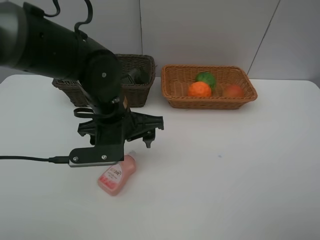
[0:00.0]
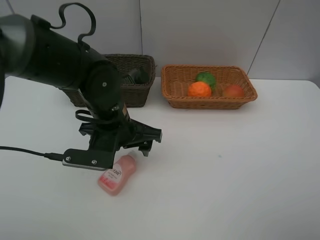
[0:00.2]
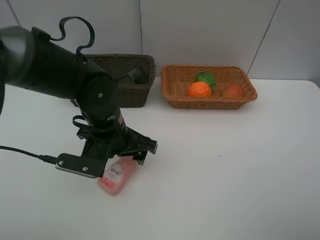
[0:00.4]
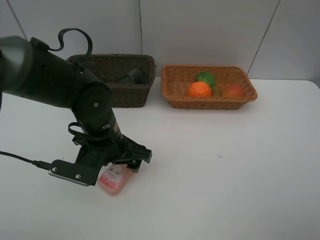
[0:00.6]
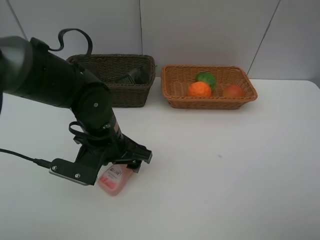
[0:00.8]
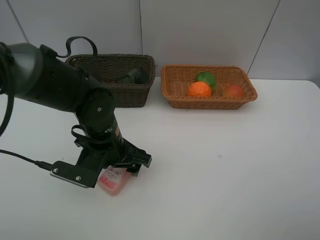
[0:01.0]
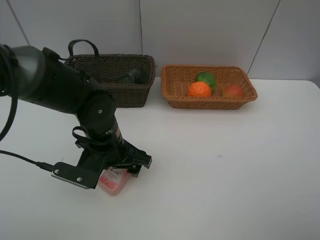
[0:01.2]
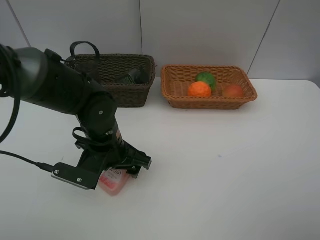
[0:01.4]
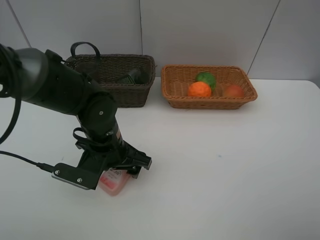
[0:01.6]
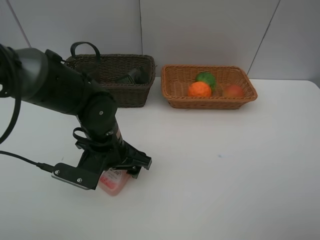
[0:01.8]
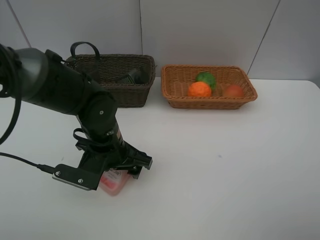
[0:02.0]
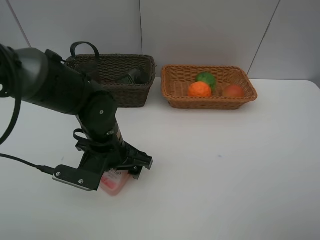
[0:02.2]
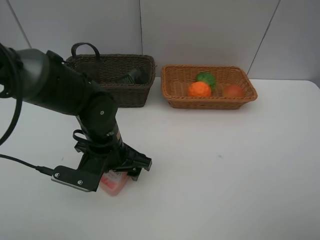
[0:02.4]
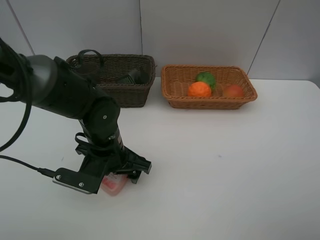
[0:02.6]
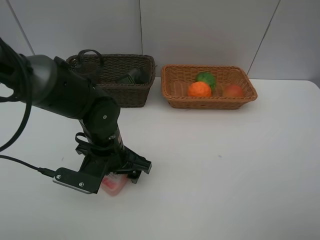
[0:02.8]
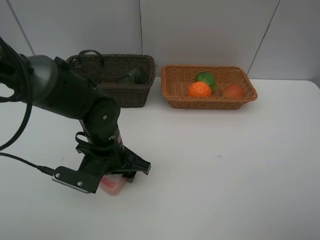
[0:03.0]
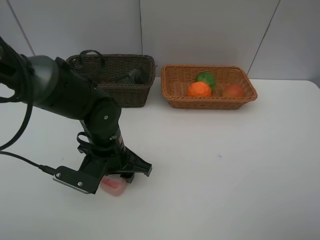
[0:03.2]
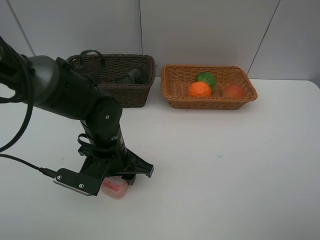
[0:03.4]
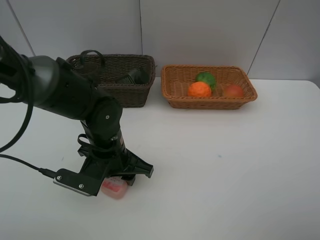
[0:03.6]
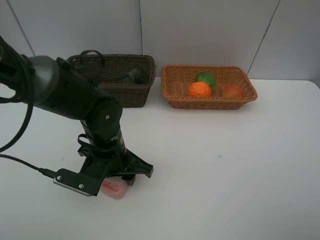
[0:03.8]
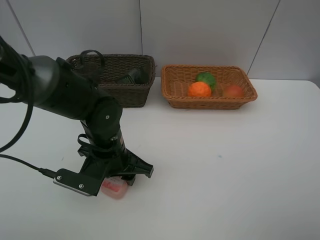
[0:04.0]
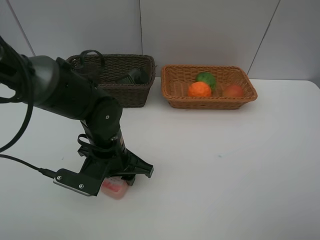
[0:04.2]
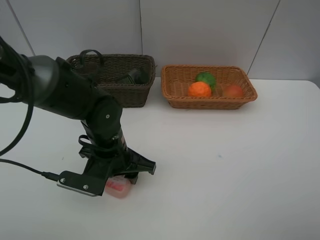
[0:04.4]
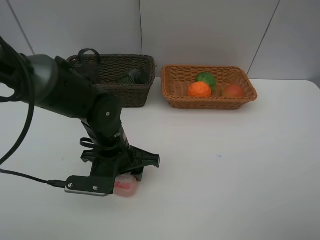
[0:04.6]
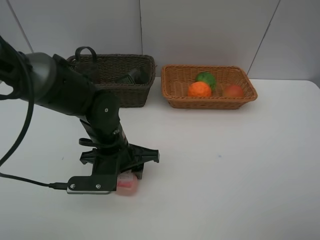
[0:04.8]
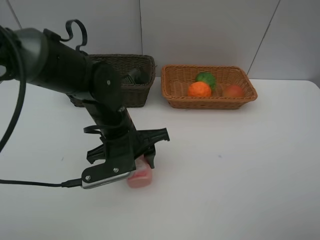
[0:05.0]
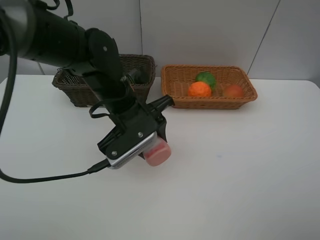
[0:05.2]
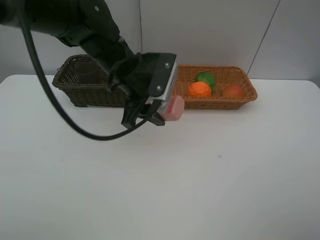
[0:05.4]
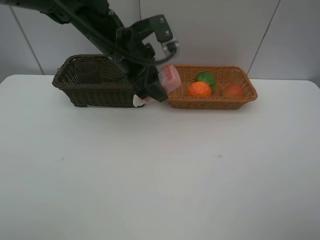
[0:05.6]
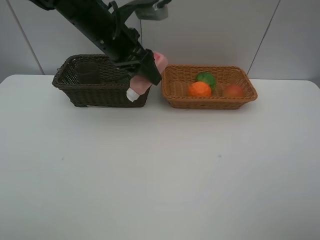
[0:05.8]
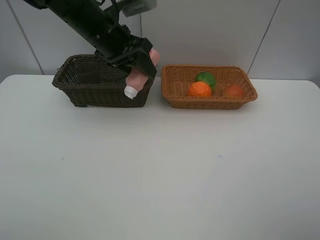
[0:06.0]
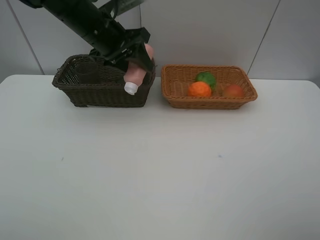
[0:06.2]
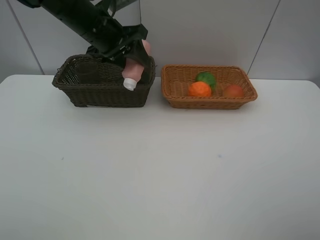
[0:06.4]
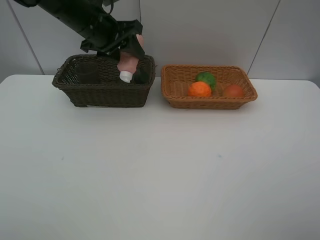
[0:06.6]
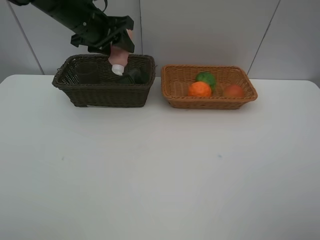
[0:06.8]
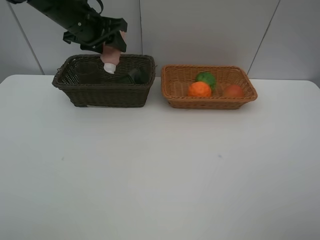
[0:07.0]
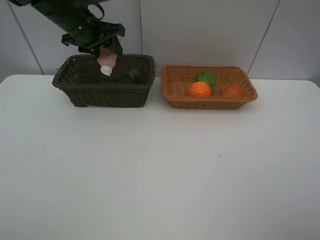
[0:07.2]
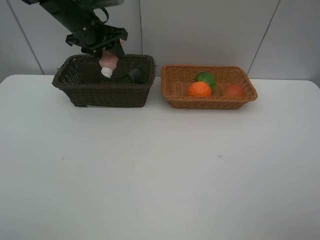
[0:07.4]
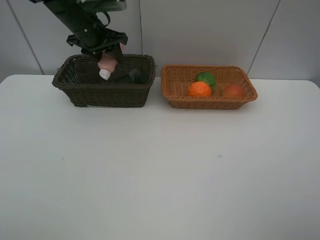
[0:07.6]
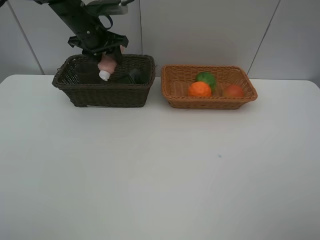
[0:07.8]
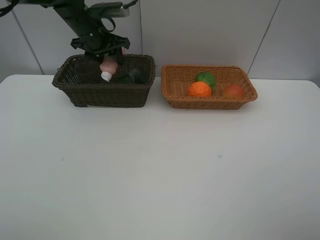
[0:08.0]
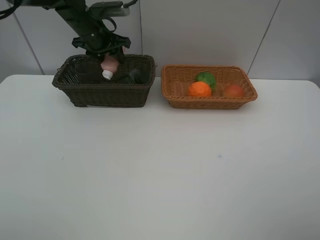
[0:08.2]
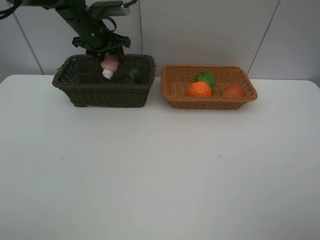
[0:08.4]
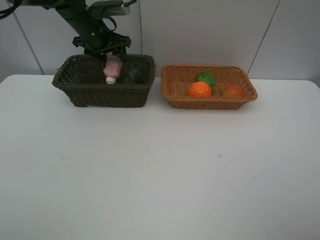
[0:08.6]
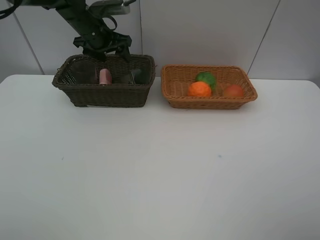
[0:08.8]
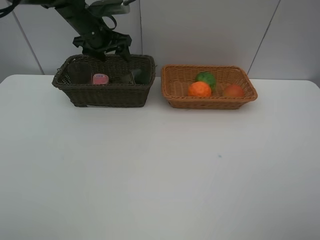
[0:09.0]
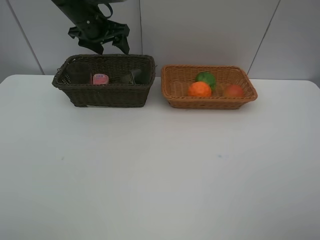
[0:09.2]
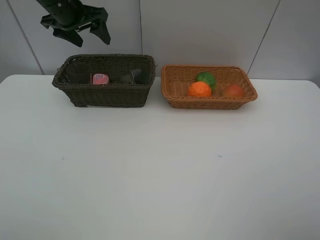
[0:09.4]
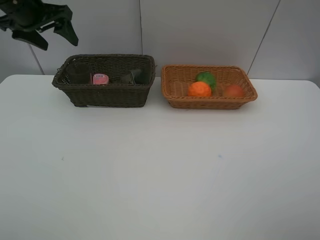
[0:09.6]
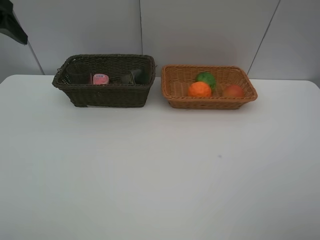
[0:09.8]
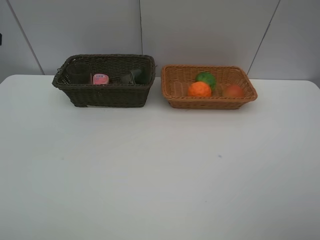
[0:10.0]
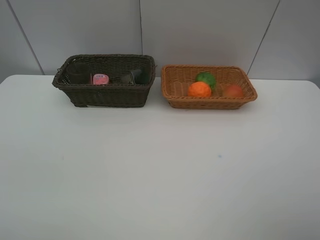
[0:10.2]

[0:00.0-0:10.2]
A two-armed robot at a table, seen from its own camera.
Task of the whole recording: place multiple objects separately in different baskets.
0:00.0 to 0:01.4: The left gripper is displaced downward by roughly 5 cm.
0:01.4 to 0:03.0: The left gripper closes up.
0:03.0 to 0:04.4: There are only small adjustments of the grippers.
0:04.4 to 0:05.8: The left gripper shifts approximately 20 cm upward and forward.
0:05.8 to 0:07.2: The left gripper goes roughly 10 cm to the left and forward.
0:07.2 to 0:08.8: The left gripper changes place by roughly 5 cm, and opens.
0:08.8 to 0:10.2: The left gripper shifts roughly 35 cm backward and to the left.

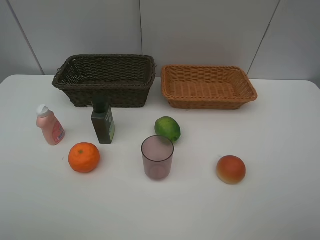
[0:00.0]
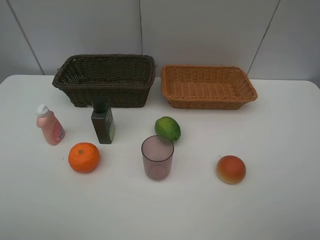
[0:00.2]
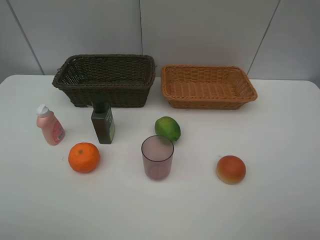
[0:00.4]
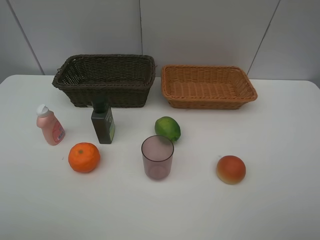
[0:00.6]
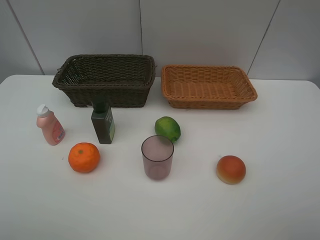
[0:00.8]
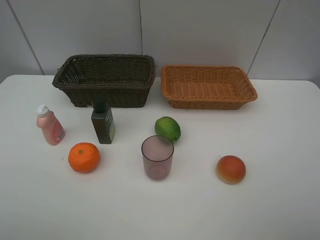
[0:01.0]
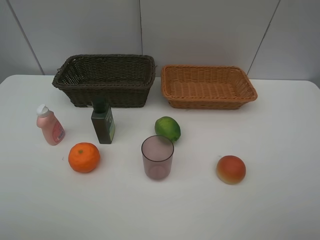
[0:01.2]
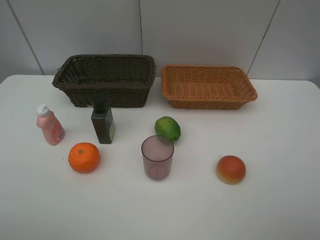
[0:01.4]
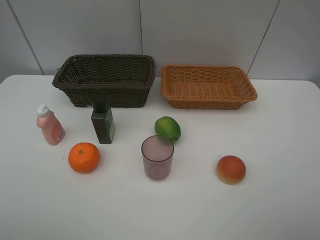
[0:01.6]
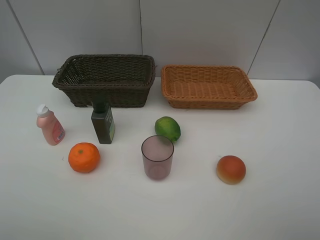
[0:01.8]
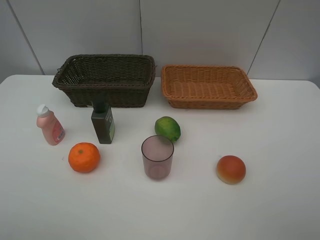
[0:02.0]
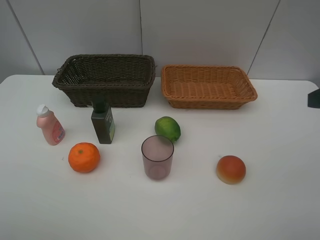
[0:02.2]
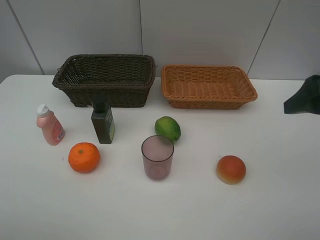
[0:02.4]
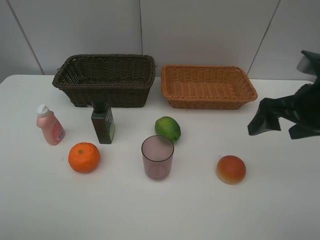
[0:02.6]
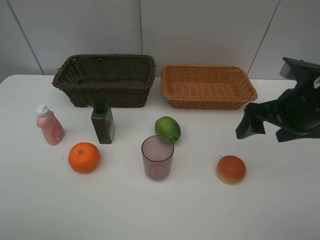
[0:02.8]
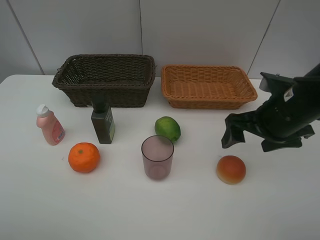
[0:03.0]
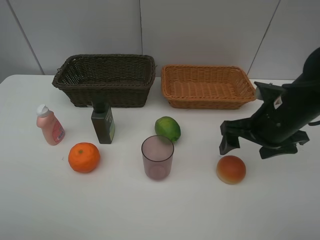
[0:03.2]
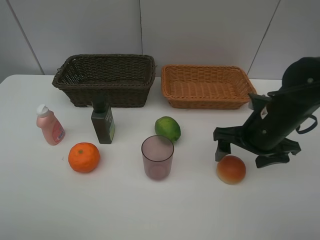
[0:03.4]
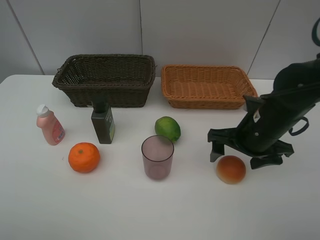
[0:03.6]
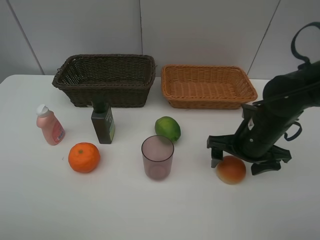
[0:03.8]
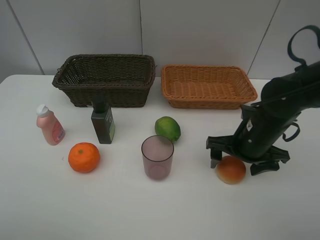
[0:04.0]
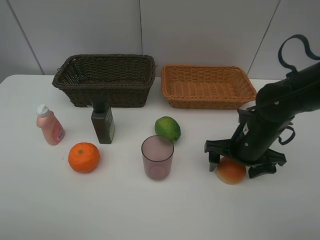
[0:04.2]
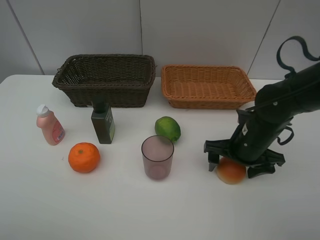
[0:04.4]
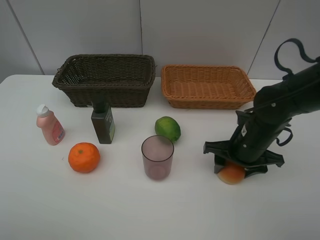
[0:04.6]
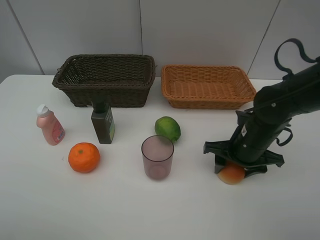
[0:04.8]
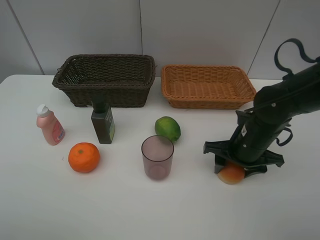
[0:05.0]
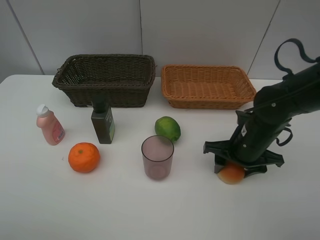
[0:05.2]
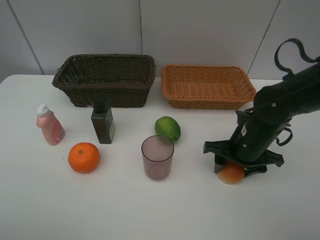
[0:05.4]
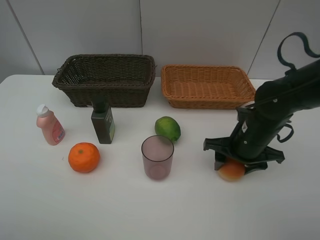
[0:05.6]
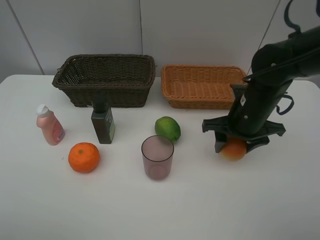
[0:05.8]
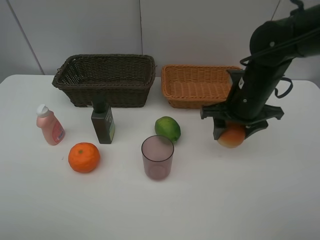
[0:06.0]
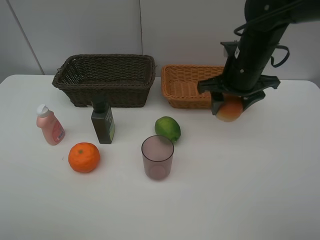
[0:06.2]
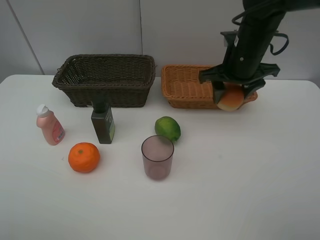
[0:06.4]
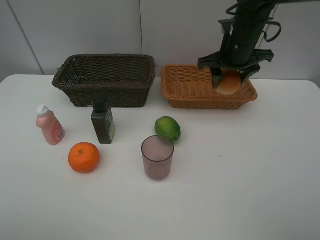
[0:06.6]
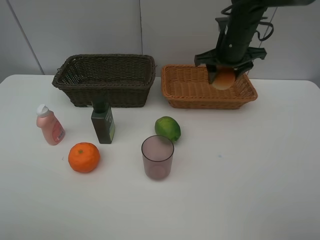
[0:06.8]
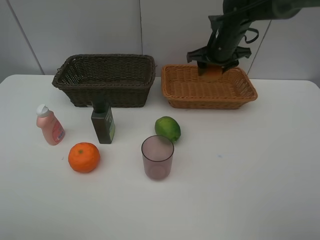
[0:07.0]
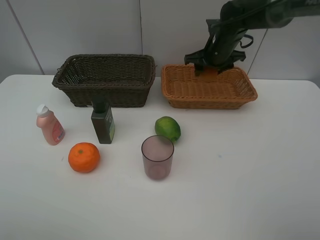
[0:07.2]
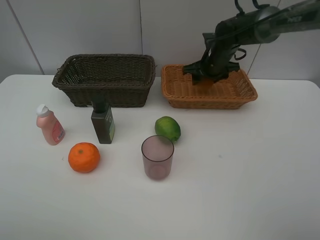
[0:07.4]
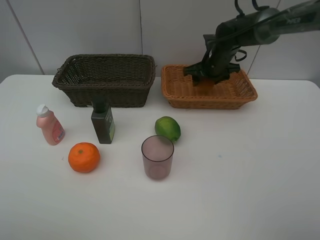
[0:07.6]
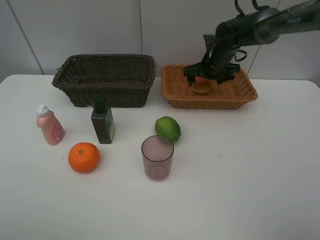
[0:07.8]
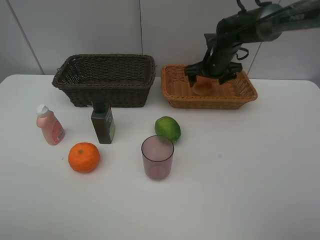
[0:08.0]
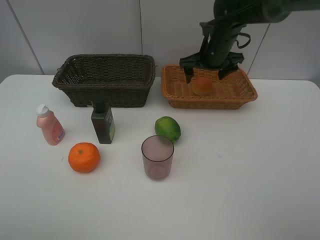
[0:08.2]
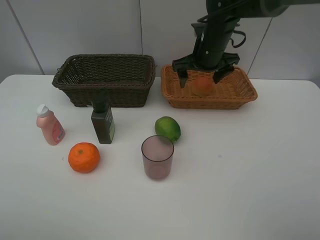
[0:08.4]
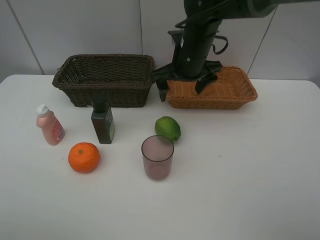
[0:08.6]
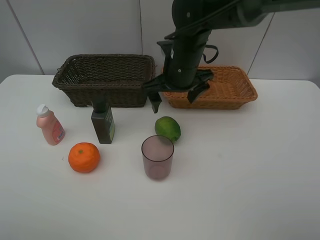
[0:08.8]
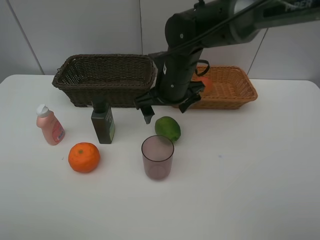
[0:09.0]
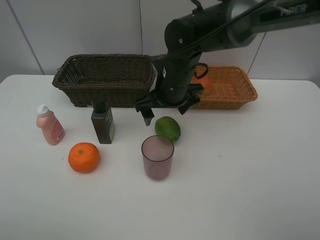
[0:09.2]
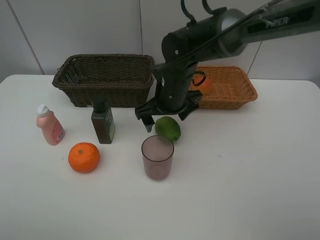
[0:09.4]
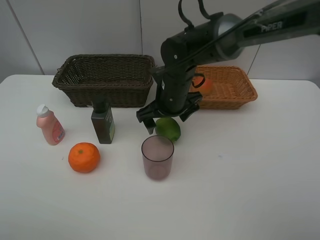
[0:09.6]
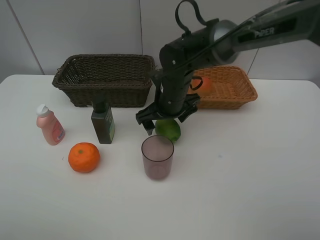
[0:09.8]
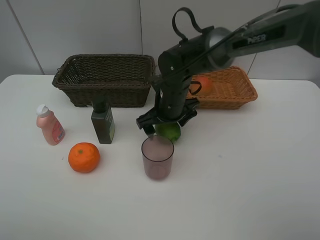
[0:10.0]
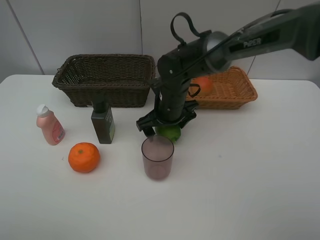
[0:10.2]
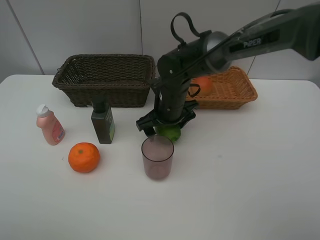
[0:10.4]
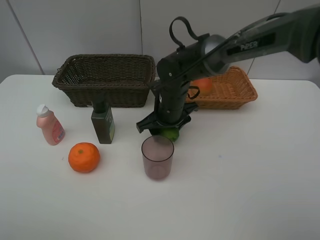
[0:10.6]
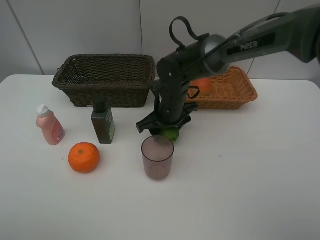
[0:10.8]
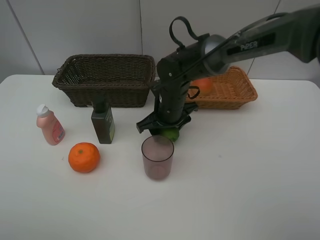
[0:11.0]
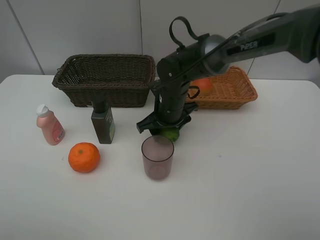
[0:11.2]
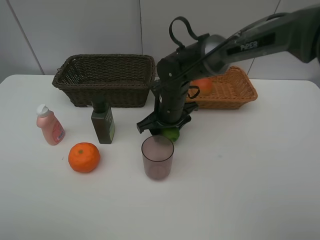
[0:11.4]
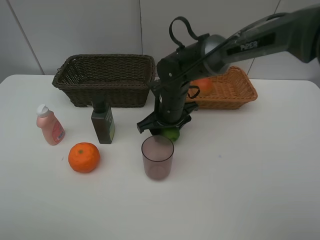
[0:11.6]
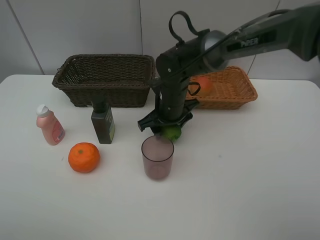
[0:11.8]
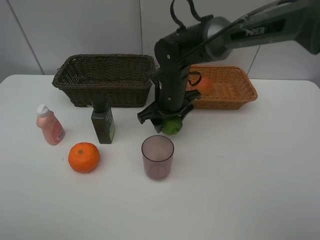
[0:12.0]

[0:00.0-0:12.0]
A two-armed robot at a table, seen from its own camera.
Task of the whole recording: place multiple objects separately in different baskets.
0:00.0 to 0:01.6: Neither gripper changes place.
0:01.6 to 0:03.0: The right gripper travels forward and to the left by about 25 cm.
0:03.0 to 0:04.4: The right gripper moves downward, some 10 cm.
0:04.4 to 0:06.0: The right gripper is displaced upward and forward by roughly 10 cm, and closes.
0:06.0 to 0:07.6: The right gripper moves forward, some 20 cm, and opens its fingers.
0:07.6 to 0:09.0: The right gripper travels backward and to the left by some 20 cm, and opens up.
0:09.0 to 0:10.4: The right gripper travels downward by about 5 cm.
0:10.4 to 0:12.0: The right gripper closes its fingers.
